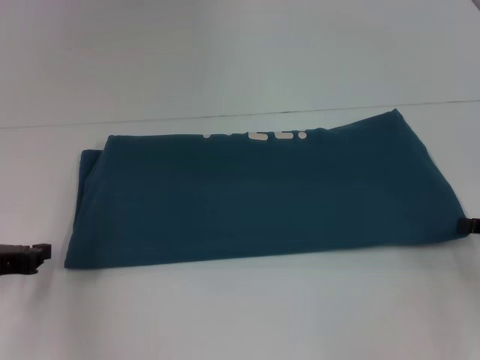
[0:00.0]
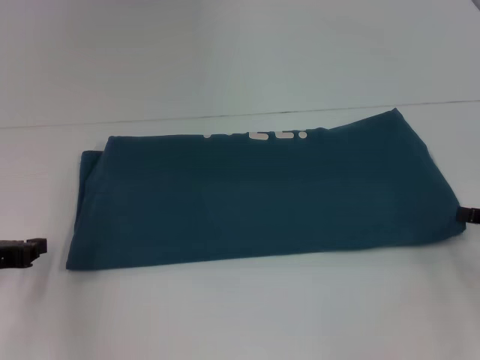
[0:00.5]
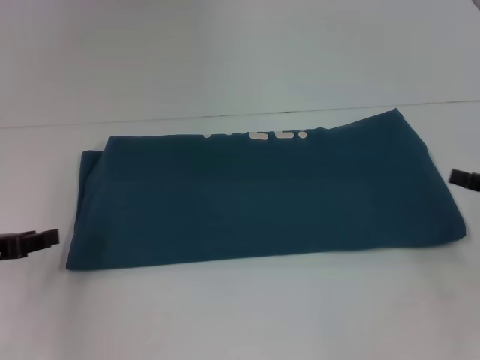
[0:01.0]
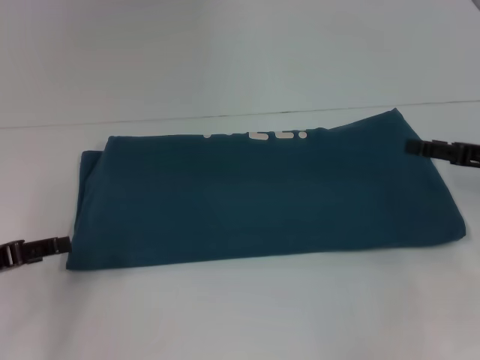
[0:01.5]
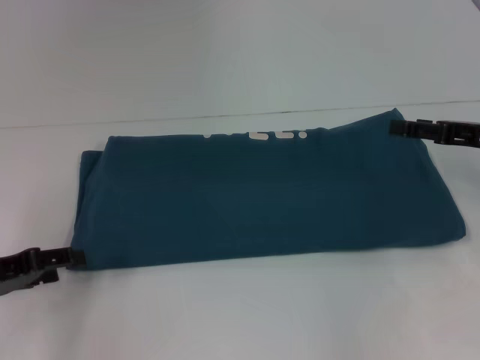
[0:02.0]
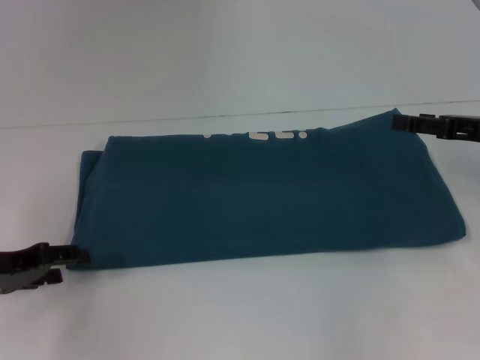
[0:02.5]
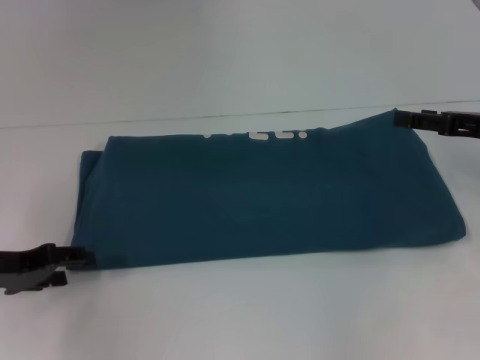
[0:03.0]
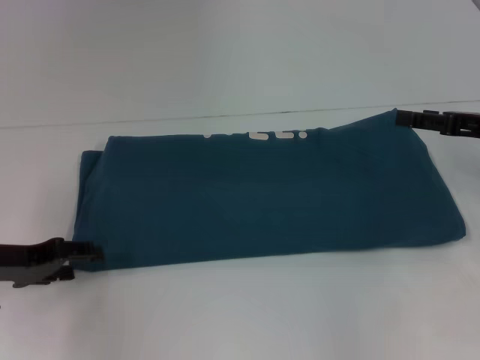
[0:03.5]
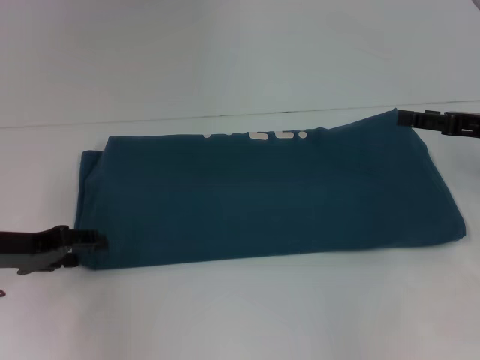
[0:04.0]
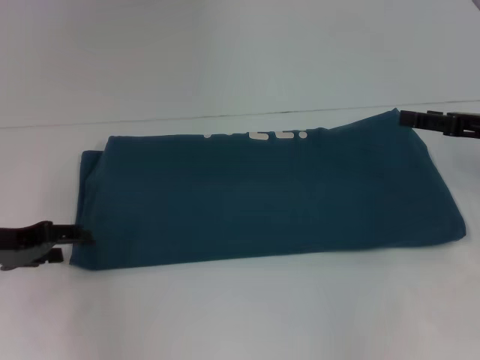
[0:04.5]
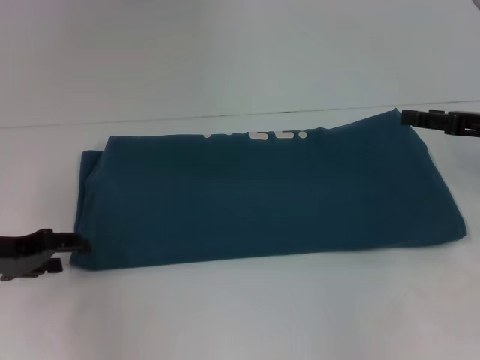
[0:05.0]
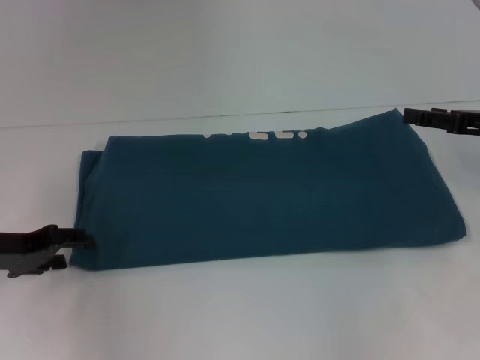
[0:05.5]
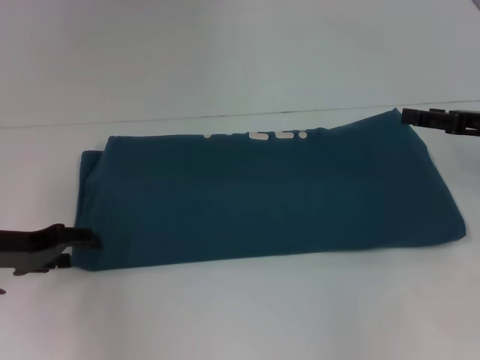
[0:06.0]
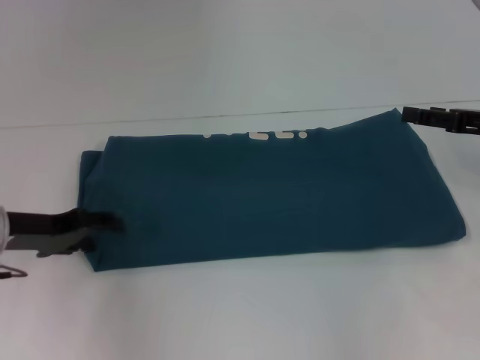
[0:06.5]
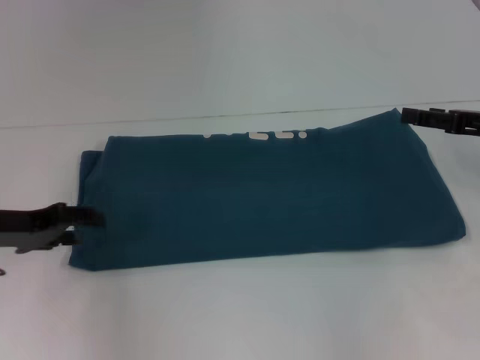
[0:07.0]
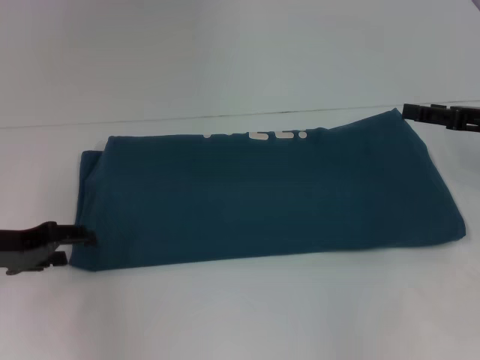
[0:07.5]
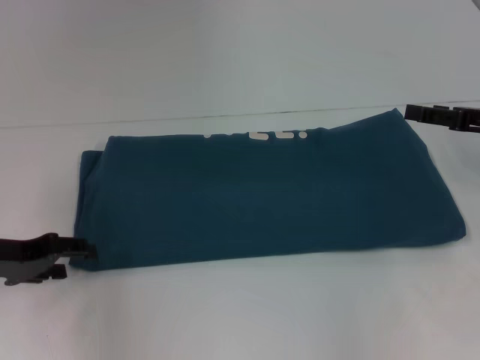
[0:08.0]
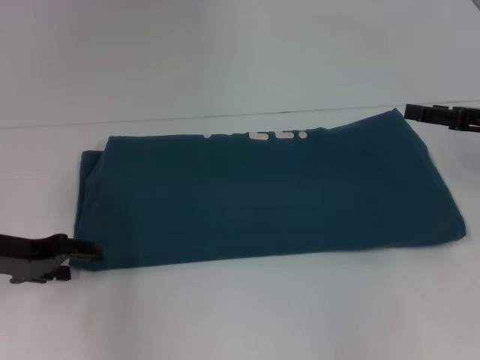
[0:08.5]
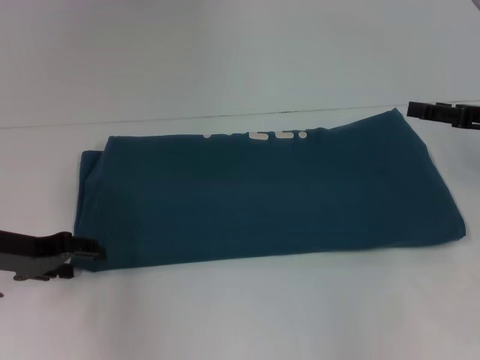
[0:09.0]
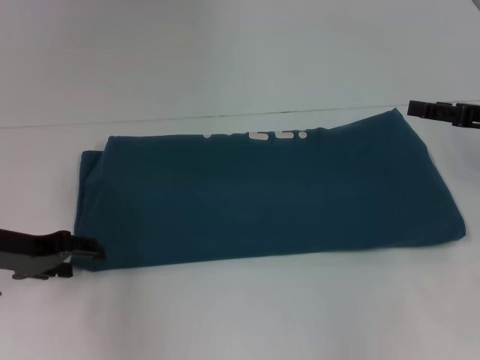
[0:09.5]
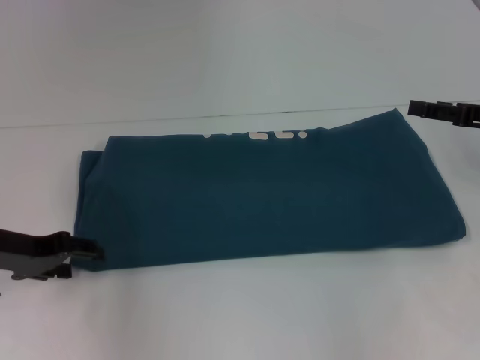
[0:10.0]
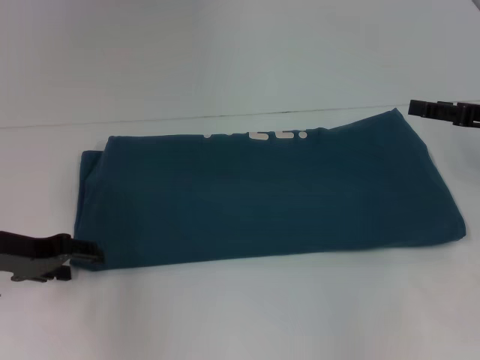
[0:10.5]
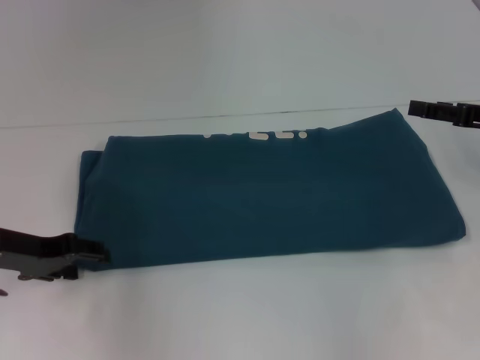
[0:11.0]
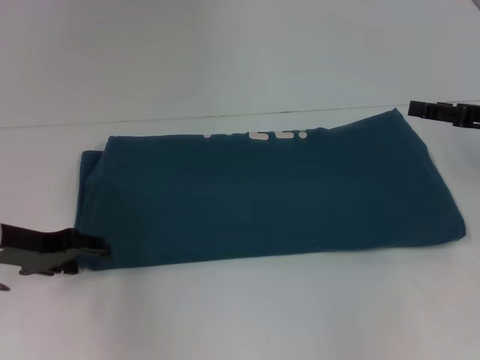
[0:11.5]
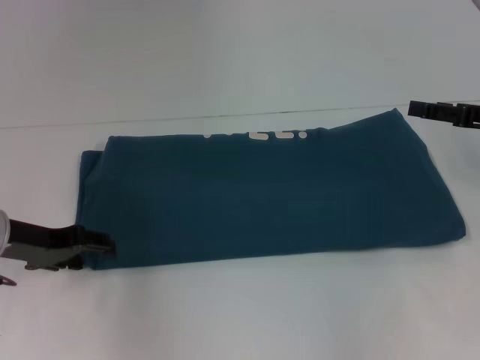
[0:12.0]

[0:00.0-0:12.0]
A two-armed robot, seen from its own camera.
0:00.0 to 0:02.0: The right gripper shifts approximately 10 cm forward and upward, and opens its fingers, while the left gripper opens its fingers.
0:02.0 to 0:04.0: The grippers make only small movements.
0:06.0 to 0:12.0: The grippers move only a little.

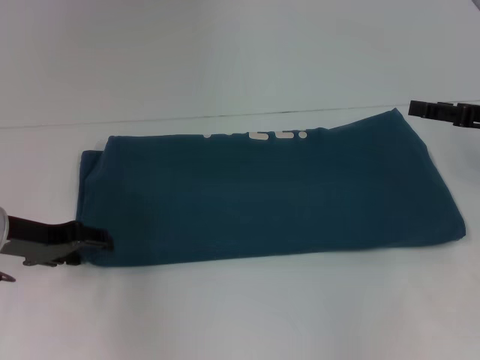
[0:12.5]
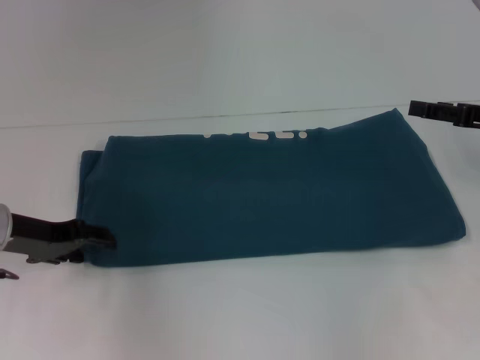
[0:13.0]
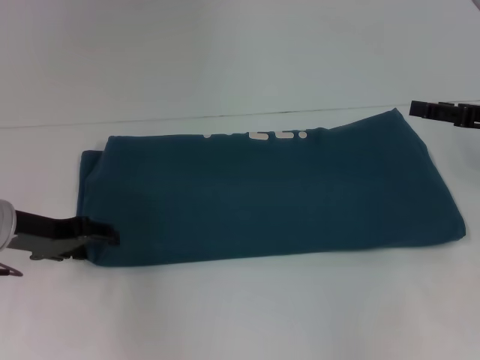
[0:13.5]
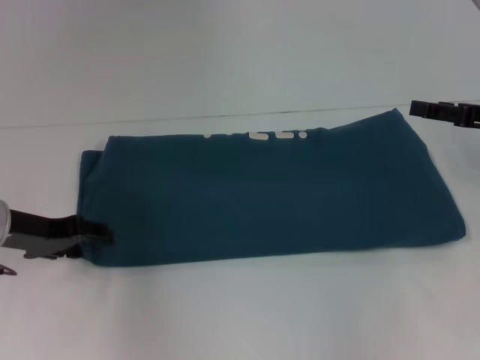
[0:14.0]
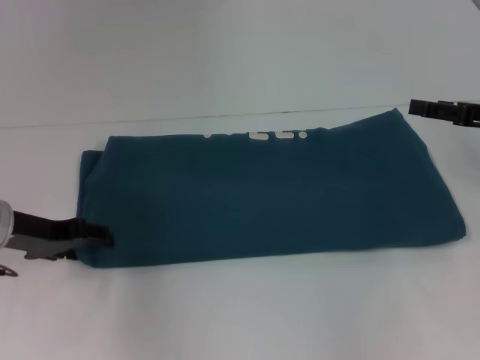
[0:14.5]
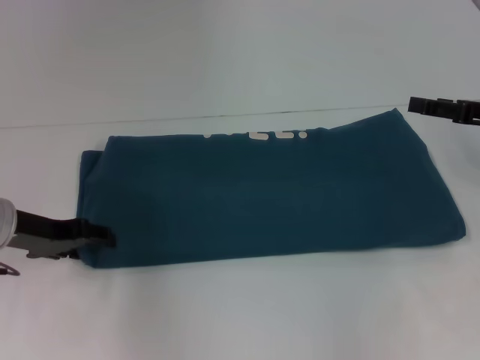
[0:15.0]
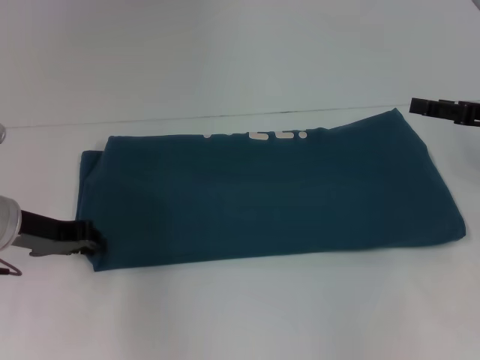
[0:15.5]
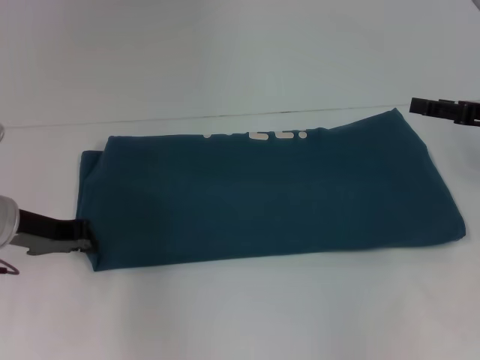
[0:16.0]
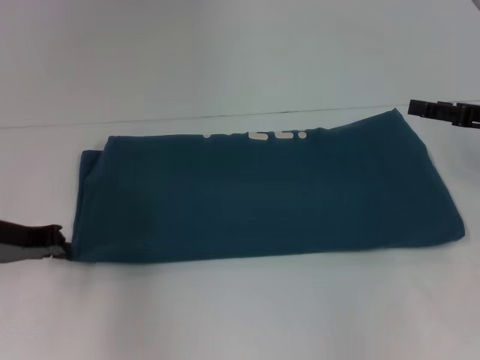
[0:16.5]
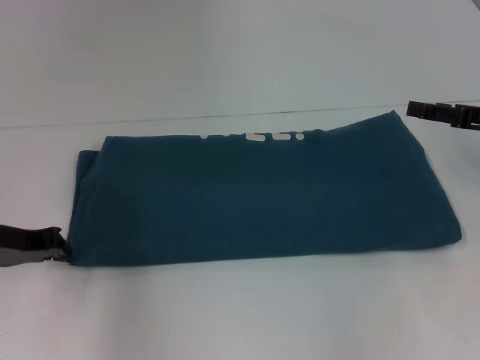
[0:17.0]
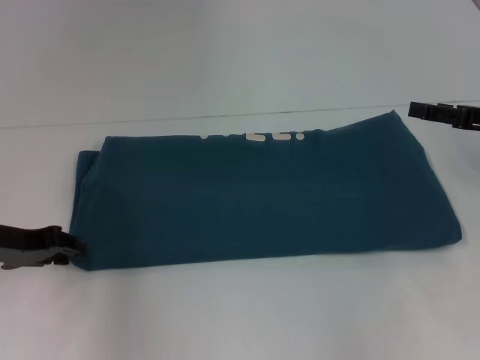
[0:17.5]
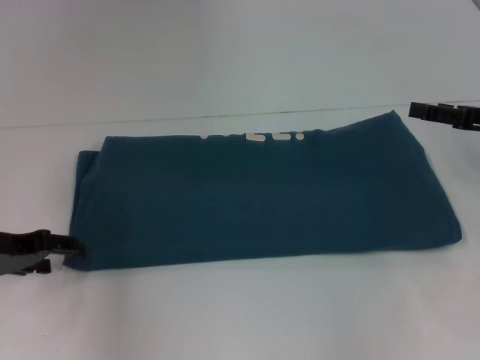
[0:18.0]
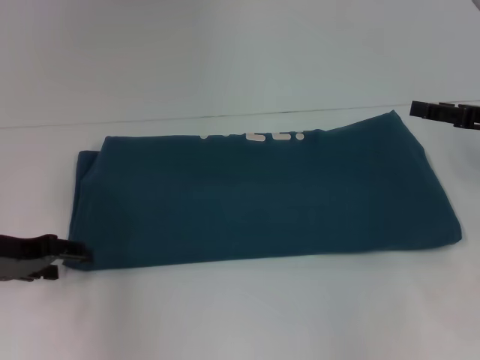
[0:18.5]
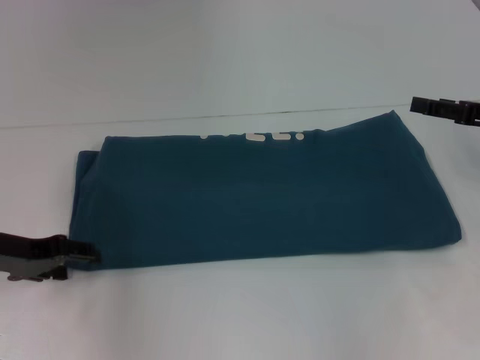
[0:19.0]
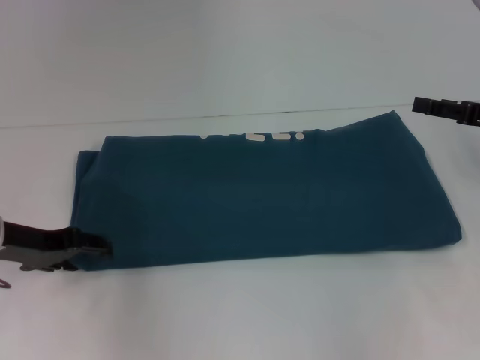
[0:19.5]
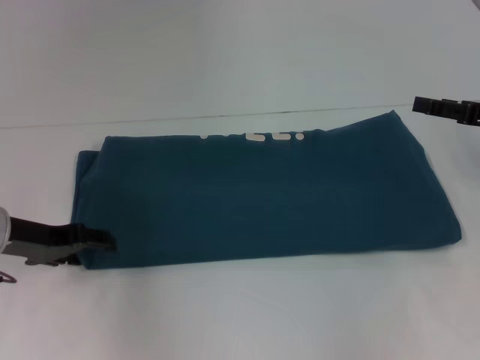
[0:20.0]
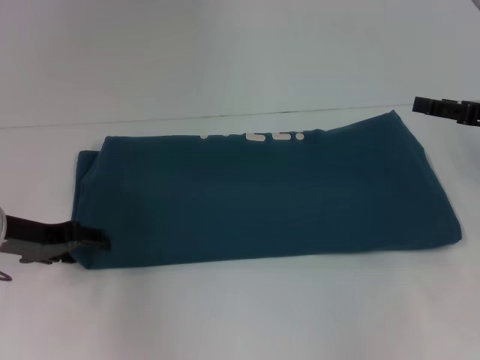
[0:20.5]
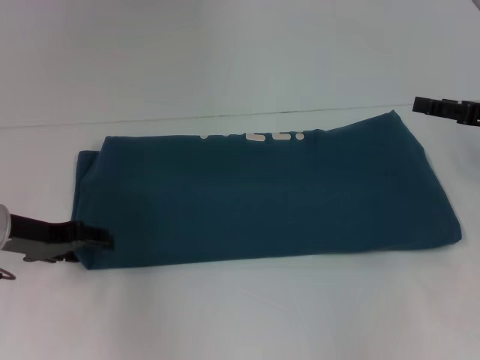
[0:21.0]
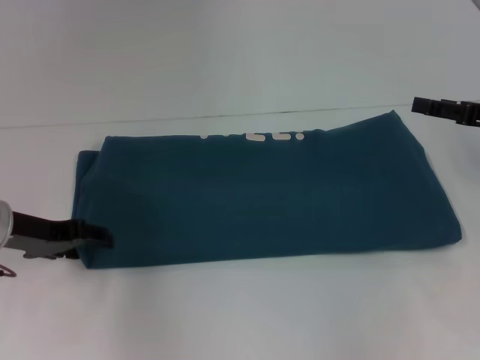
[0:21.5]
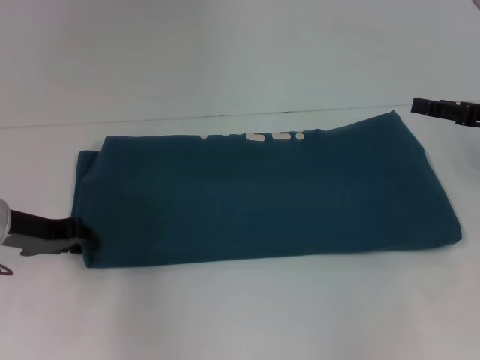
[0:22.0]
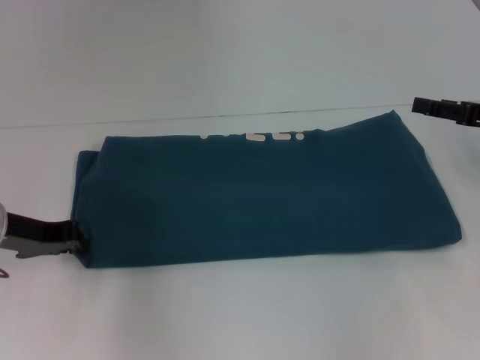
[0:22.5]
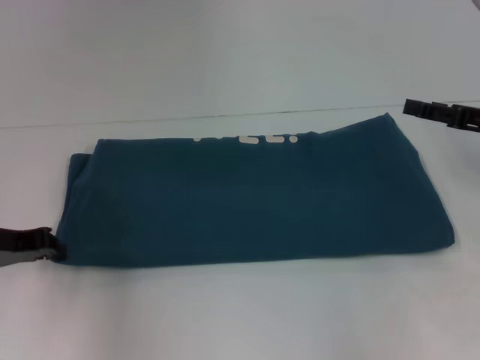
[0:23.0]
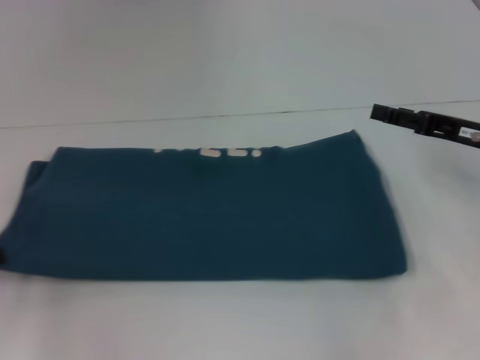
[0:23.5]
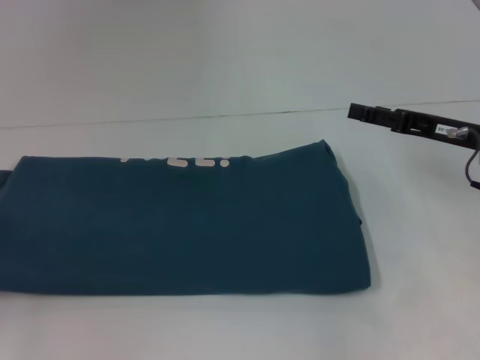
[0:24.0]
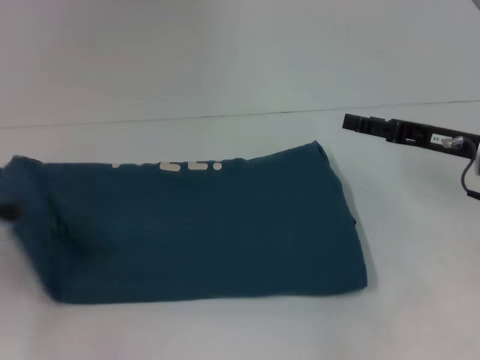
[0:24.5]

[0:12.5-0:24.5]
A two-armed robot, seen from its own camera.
0:12.5 to 0:14.5: The two grippers keep their place.
0:14.5 to 0:16.5: The left gripper closes up.
0:16.5 to 0:18.5: The left gripper opens.
0:18.5 to 0:20.5: There are only small adjustments of the grippers.
0:20.5 to 0:22.5: The left gripper closes up.
0:22.5 to 0:24.5: The right gripper goes about 5 cm to the left. The left gripper travels to the left and backward by some 10 cm.

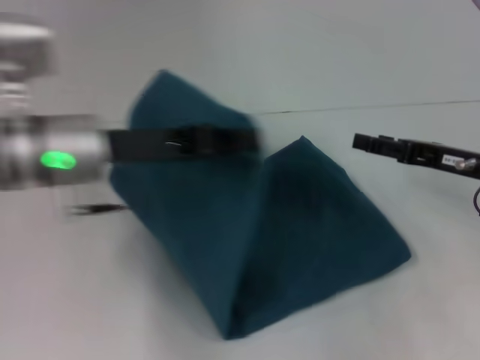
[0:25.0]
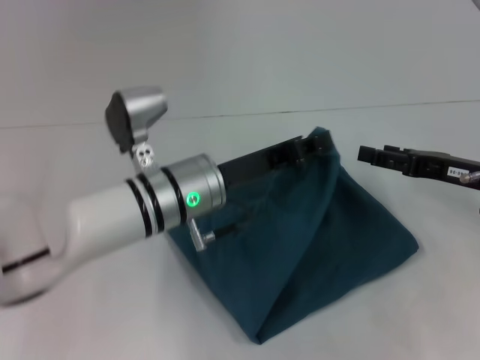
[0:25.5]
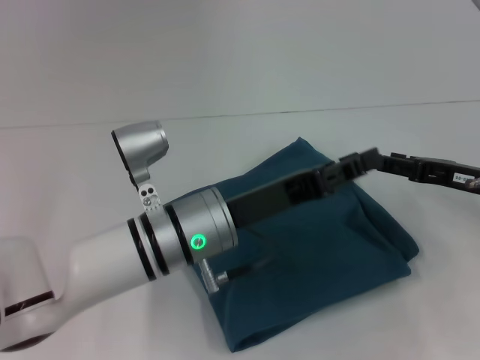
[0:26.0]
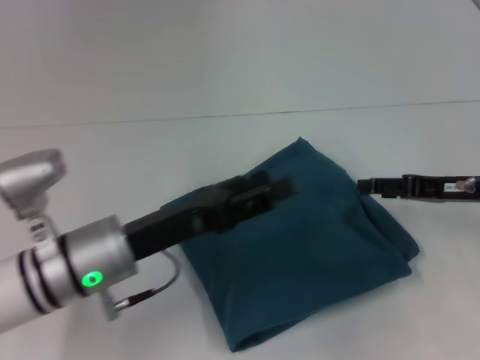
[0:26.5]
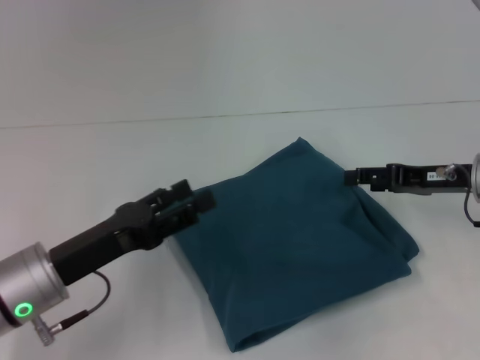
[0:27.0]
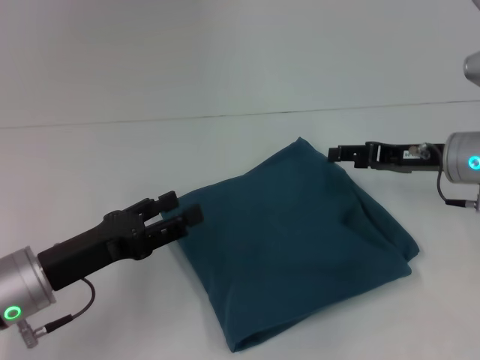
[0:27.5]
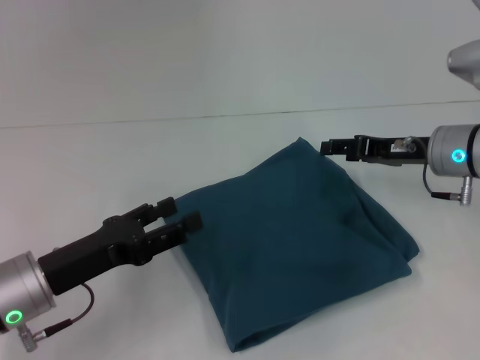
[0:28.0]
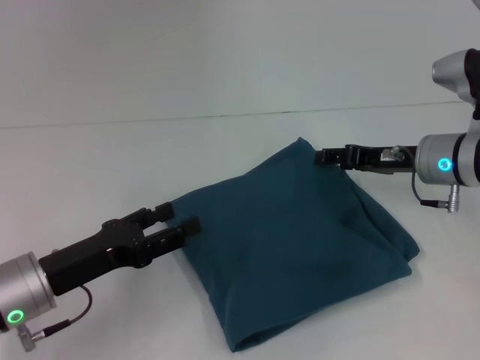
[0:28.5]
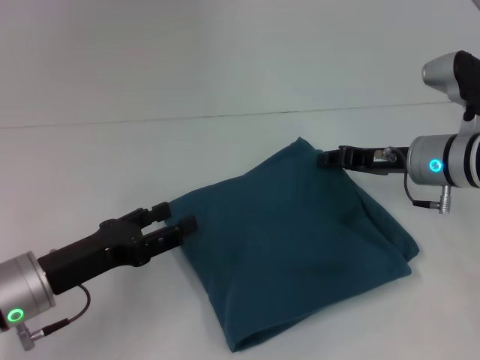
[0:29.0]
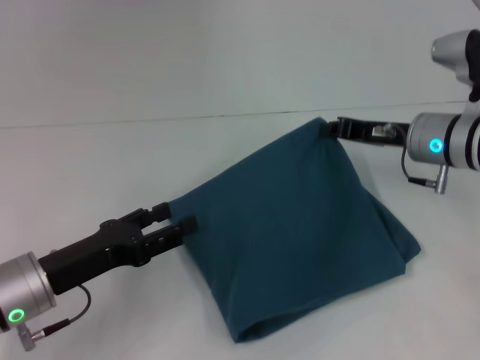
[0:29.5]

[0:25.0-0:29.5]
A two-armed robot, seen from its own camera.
0:25.0 to 0:27.0: The left gripper heads downward, backward and to the left, covering some 15 cm, and opens.
0:27.0 to 0:29.5: The right gripper is displaced to the left by roughly 5 cm, and closes up.
